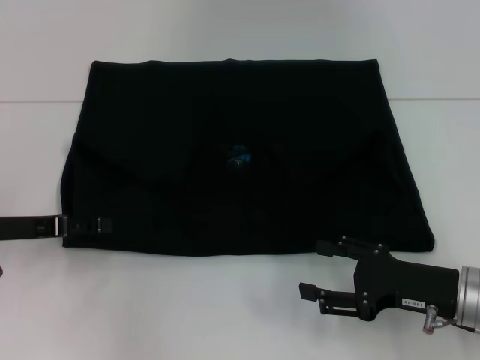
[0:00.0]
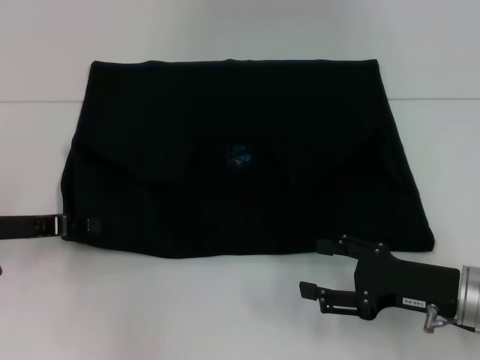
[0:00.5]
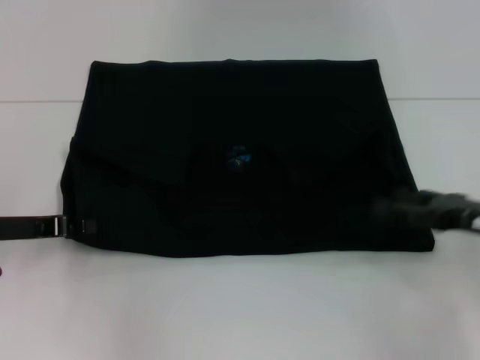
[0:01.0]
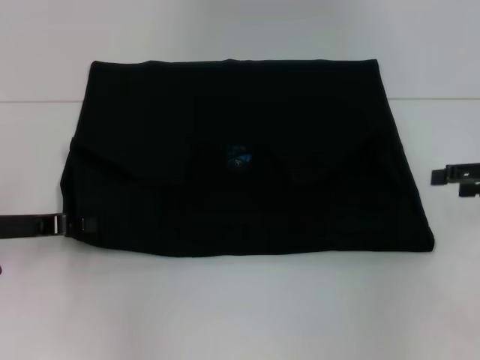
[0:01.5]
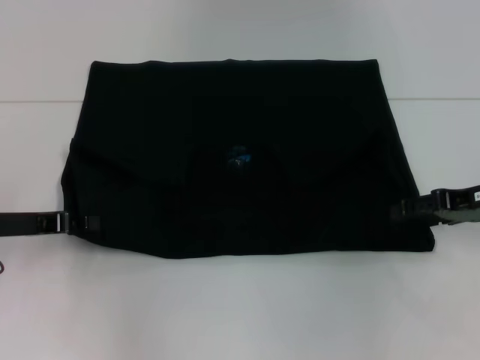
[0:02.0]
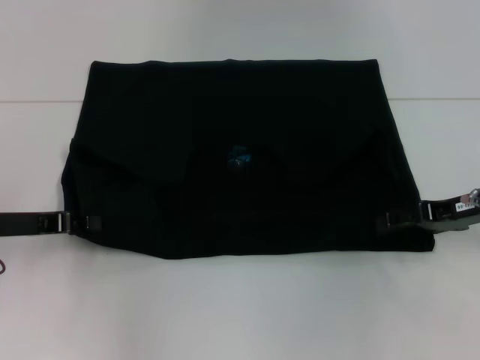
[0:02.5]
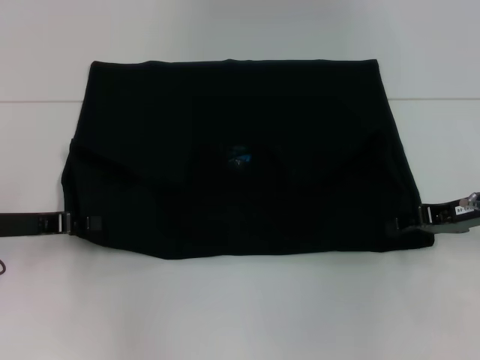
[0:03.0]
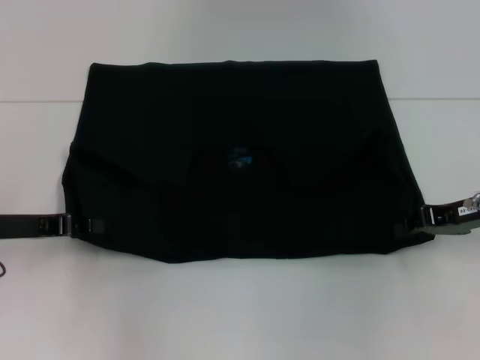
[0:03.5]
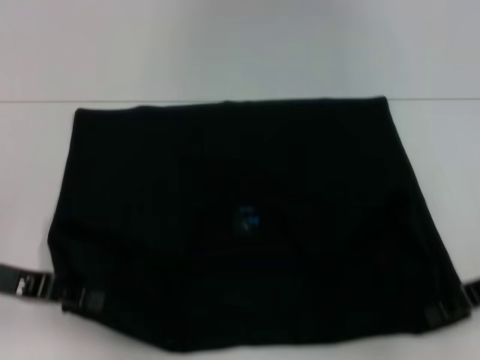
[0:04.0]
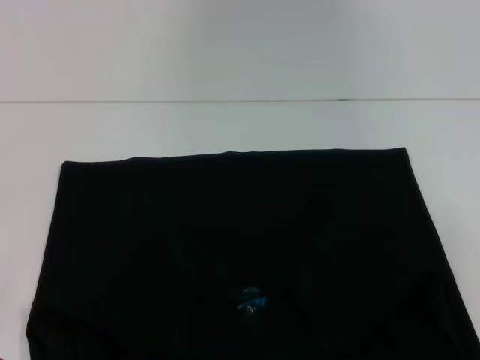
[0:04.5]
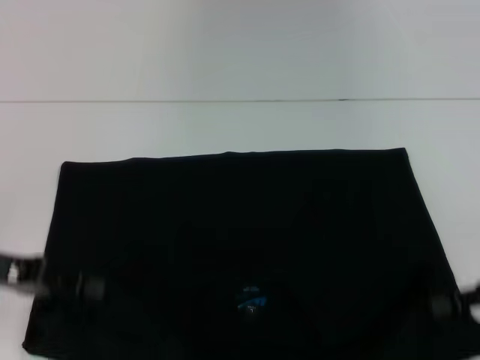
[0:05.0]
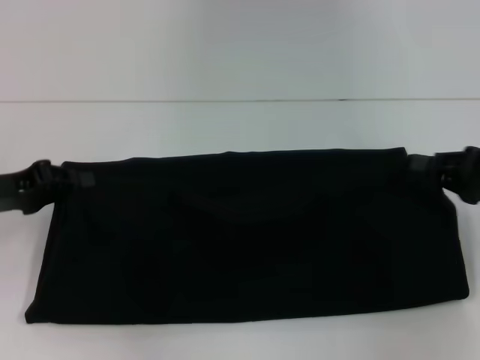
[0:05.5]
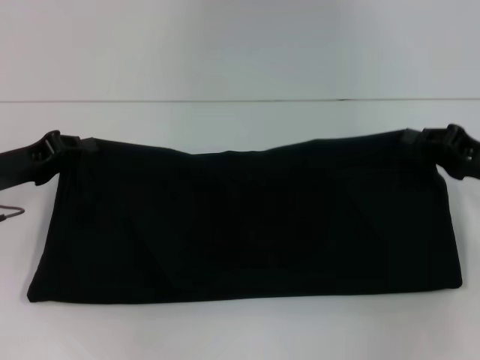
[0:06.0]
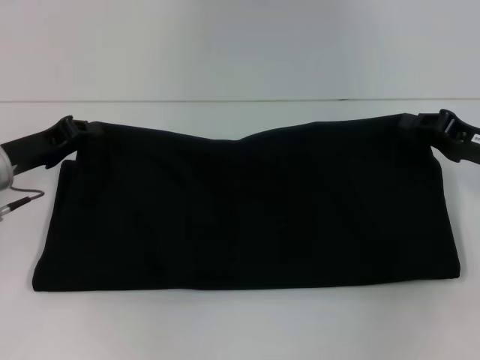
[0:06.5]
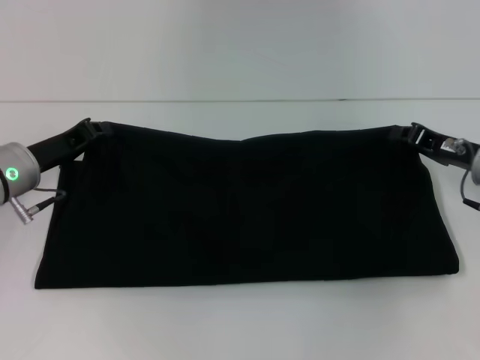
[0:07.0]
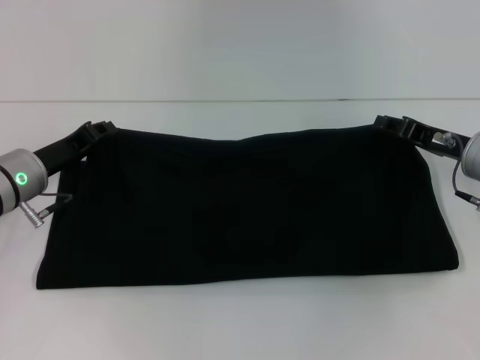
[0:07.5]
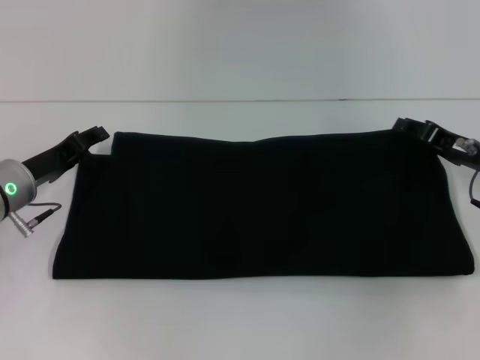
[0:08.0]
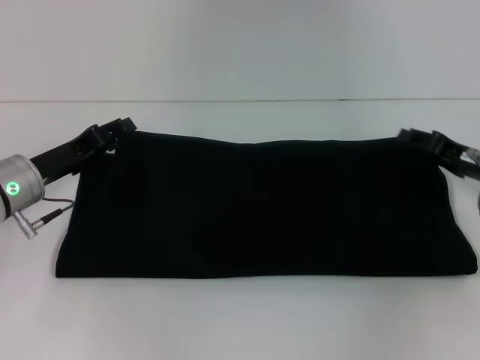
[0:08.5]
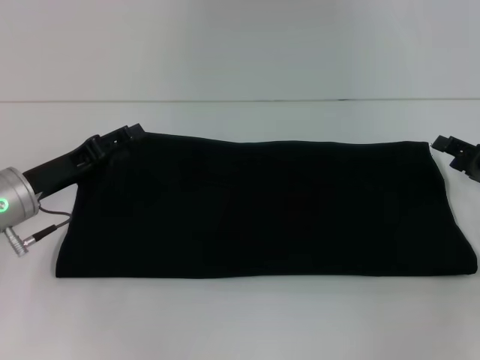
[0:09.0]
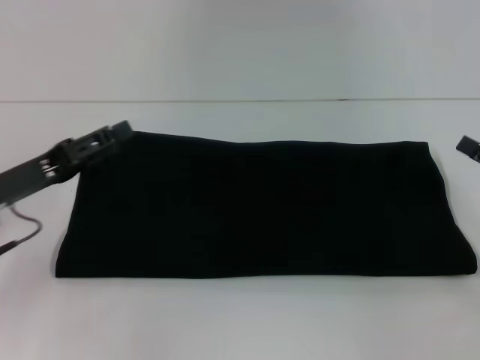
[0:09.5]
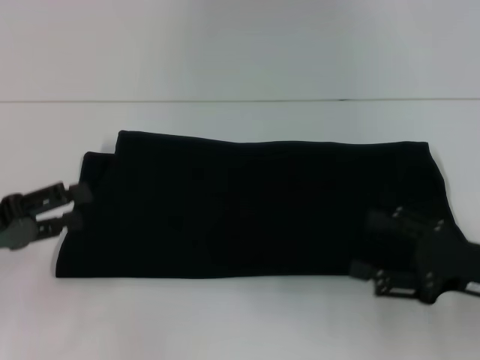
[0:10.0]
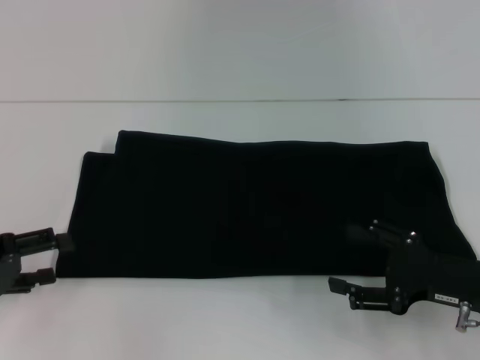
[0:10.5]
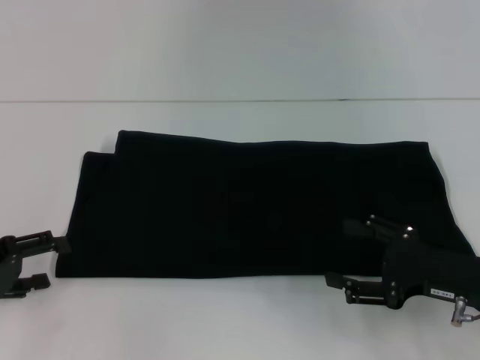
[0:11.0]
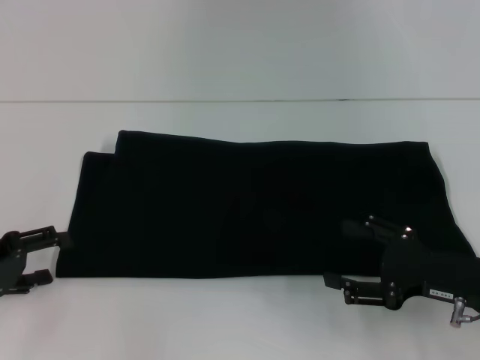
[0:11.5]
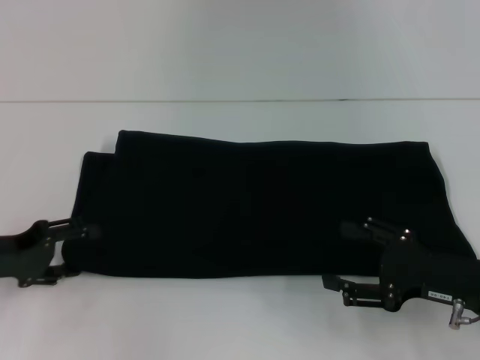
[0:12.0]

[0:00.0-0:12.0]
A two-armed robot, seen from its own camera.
Step, 0:00.0 to 0:04.0: Pull the clothes with your left hand.
Step, 0:00.0 to 0:04.0: Pull the clothes with your right hand.
Step, 0:04.5 to 0:09.0: Fold the clothes with your right hand.
0:00.0 to 0:02.0: The left gripper closes up. The right gripper shifts roughly 15 cm forward, upward and to the right.
0:02.0 to 0:04.0: The right gripper travels backward by approximately 5 cm, and closes up.
0:04.0 to 0:06.0: The right gripper goes backward and returns, approximately 5 cm each way, while the left gripper goes roughly 5 cm forward.
0:06.0 to 0:08.0: The right gripper opens up, while the left gripper ends up some 5 cm from where it was, and opens up.
0:08.0 to 0:10.0: The left gripper is displaced backward and to the left by about 10 cm; the right gripper travels backward by approximately 15 cm, and opens.

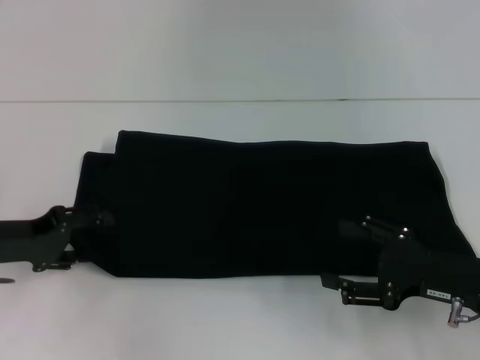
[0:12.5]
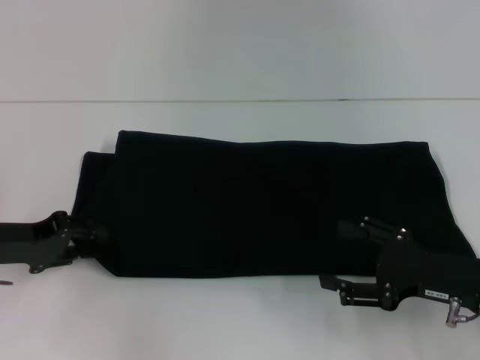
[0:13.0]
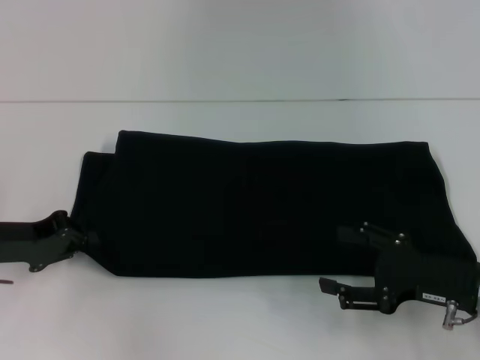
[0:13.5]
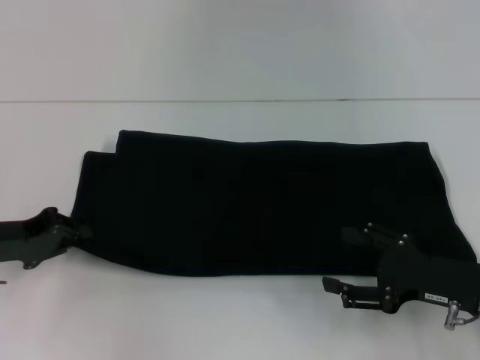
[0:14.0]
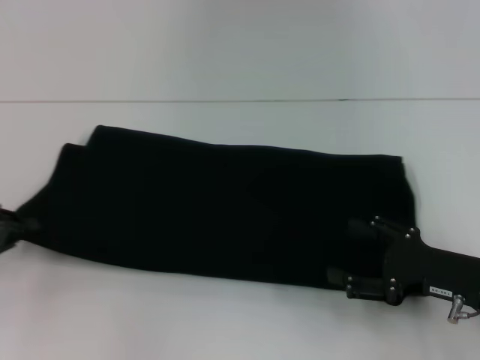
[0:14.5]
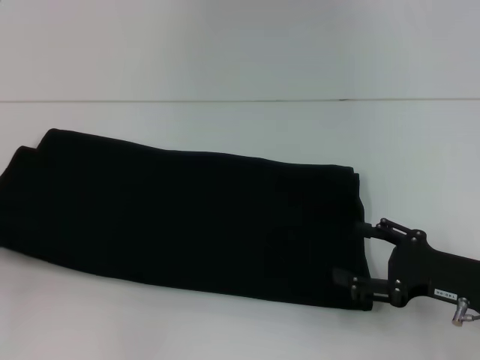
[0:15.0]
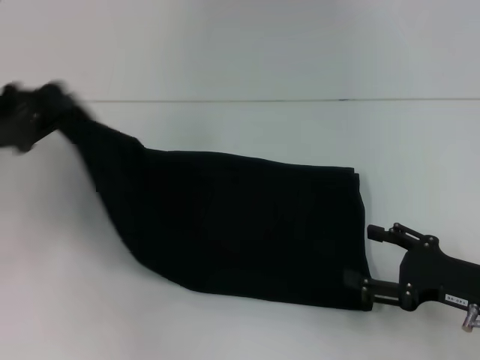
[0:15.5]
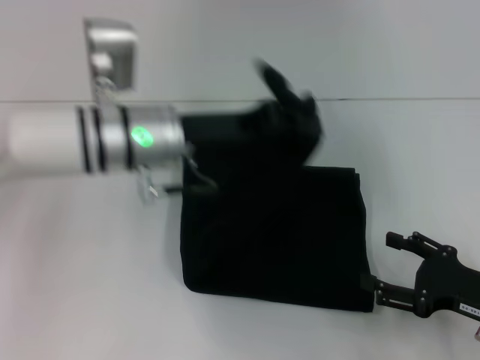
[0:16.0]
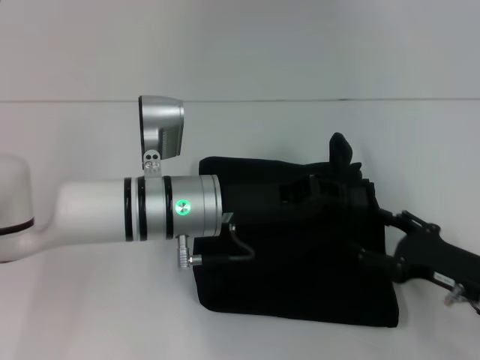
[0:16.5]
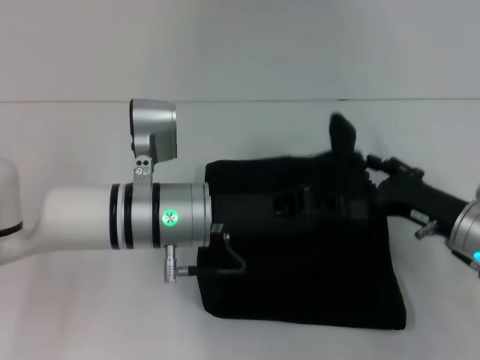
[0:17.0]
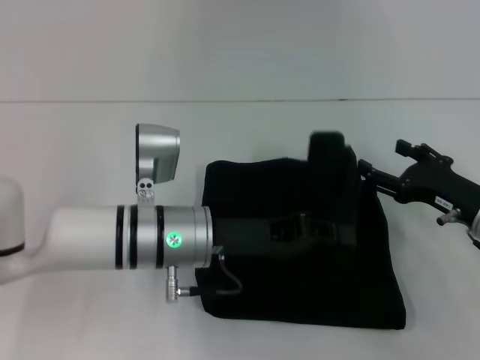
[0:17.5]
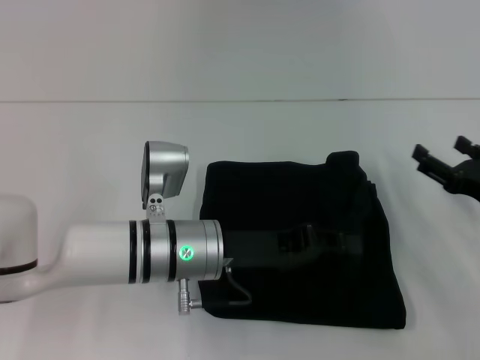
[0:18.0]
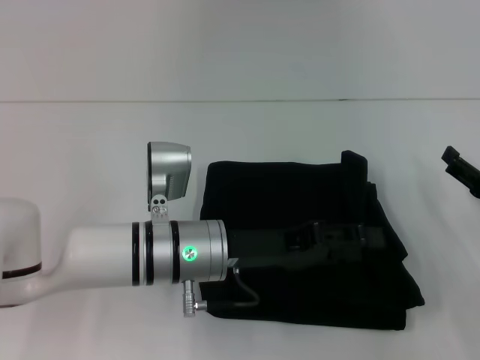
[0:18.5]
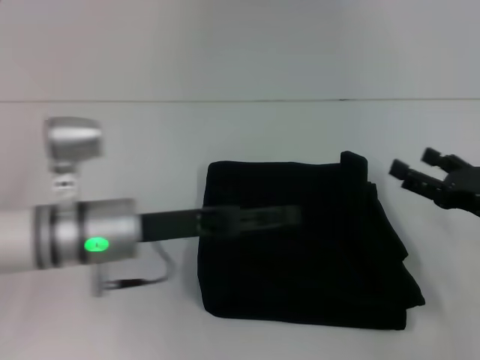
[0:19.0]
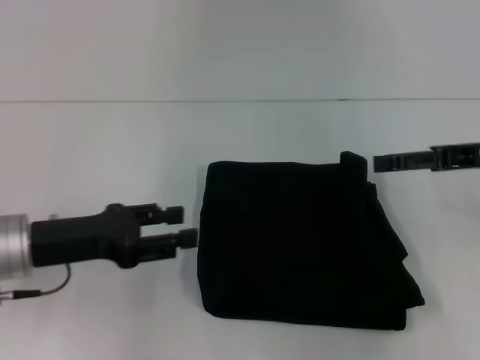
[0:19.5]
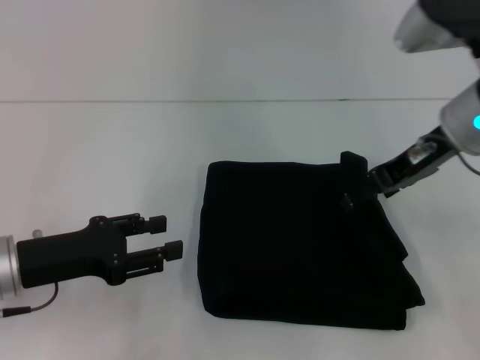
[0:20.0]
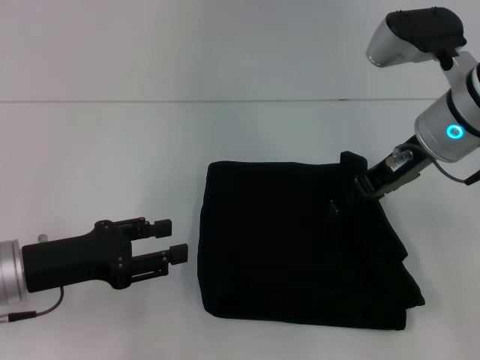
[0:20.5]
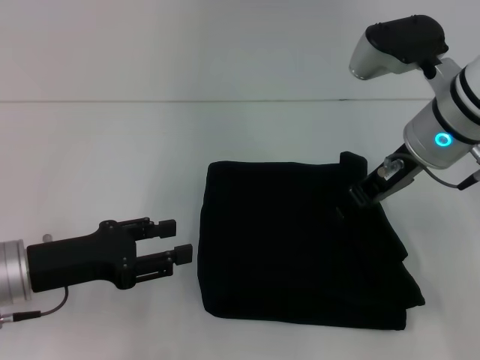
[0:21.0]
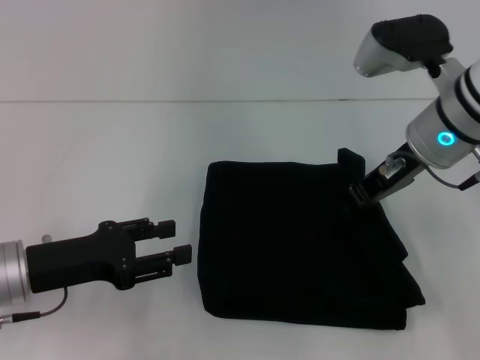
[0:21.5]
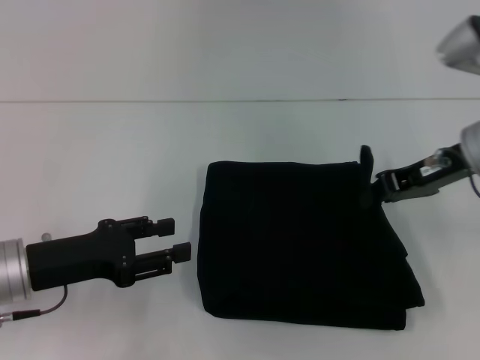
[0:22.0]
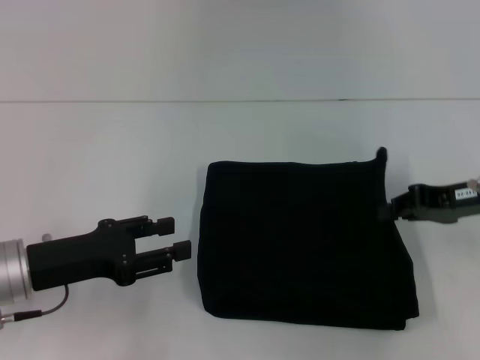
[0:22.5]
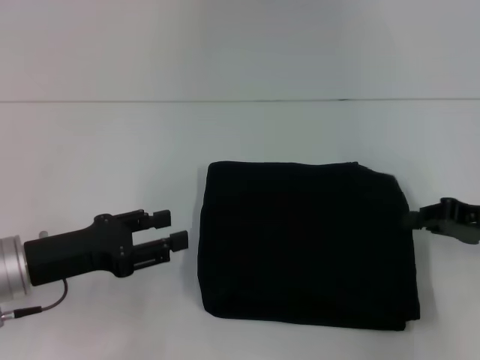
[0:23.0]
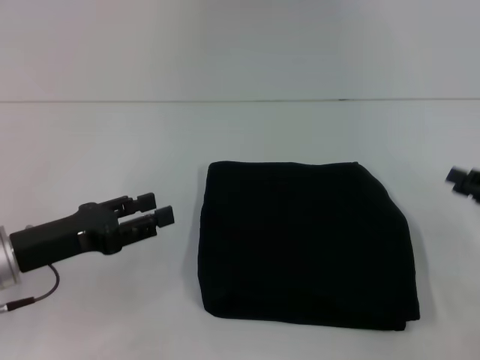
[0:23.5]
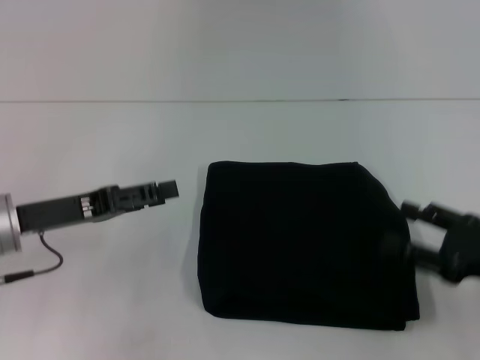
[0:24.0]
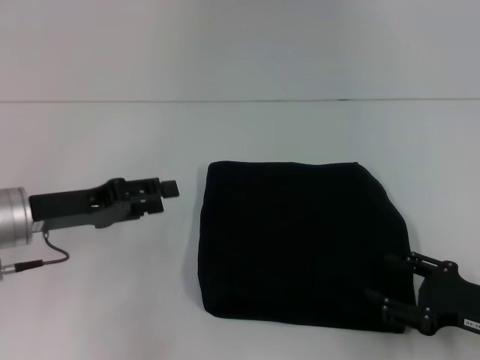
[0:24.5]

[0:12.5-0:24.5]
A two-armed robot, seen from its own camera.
Step, 0:12.5 to 0:19.0: Fold the clothes with your left hand.
0:12.5 to 0:14.5: The left gripper goes roughly 5 cm to the left, and closes its fingers.
0:14.5 to 0:16.5: The left gripper is displaced to the right by approximately 30 cm.
0:16.5 to 0:18.5: The right gripper moves to the right, roughly 5 cm.
0:18.5 to 0:20.5: The right gripper shifts about 25 cm upward, to the left and forward, while the left gripper moves to the left, about 20 cm.
0:20.5 to 0:22.5: The right gripper goes some 10 cm to the right and downward, and closes its fingers.
0:22.5 to 0:24.5: The left gripper shifts by approximately 5 cm, while the right gripper heads backward and downward, covering some 15 cm, and opens up.

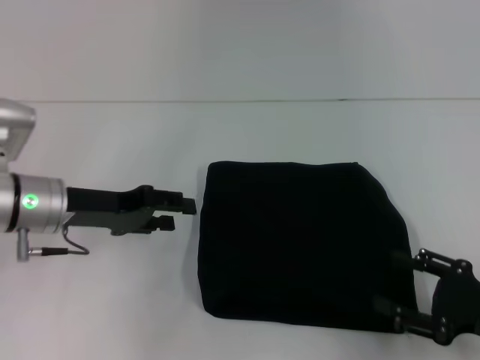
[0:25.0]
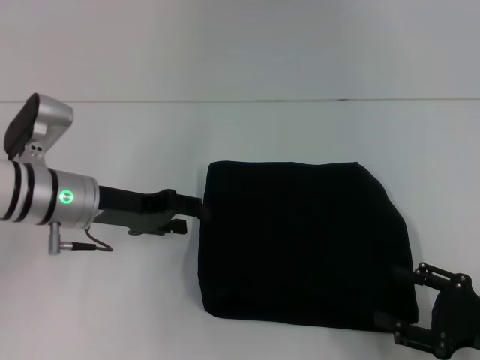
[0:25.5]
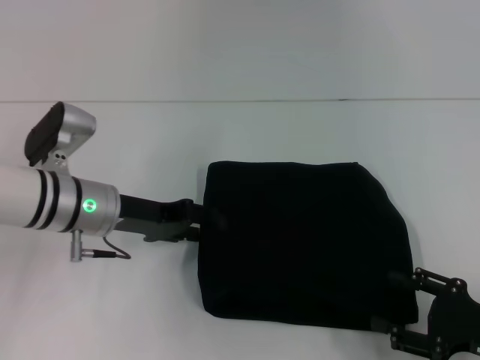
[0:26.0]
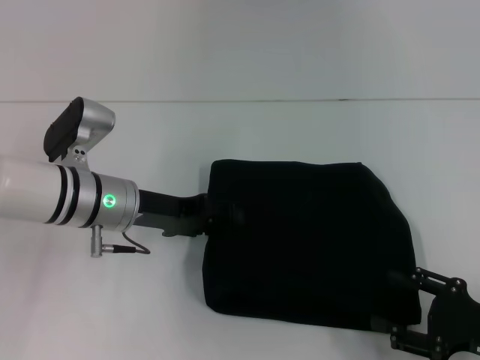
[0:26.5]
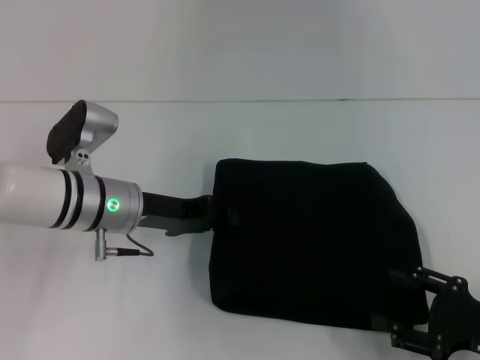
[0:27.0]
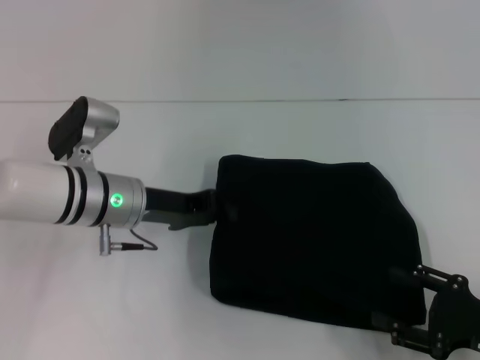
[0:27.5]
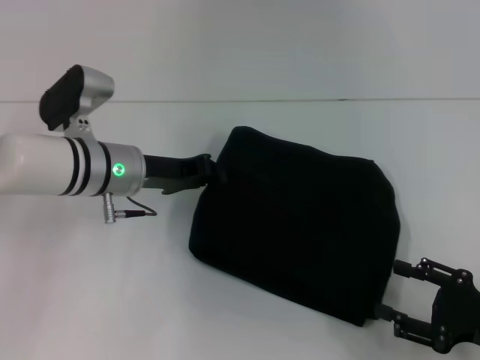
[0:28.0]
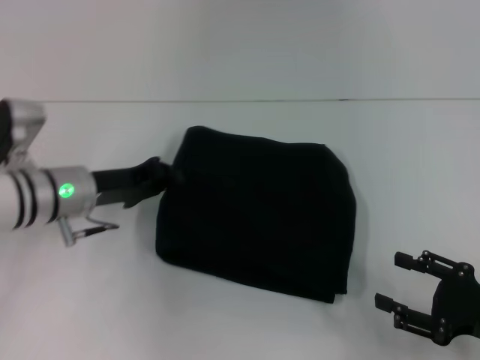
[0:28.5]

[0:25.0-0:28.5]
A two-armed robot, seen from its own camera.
0:25.0 to 0:27.0: The left gripper moves to the right, roughly 5 cm.
0:27.0 to 0:28.5: The left gripper closes up.
